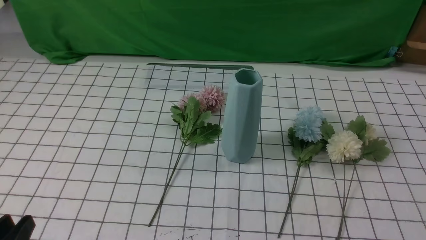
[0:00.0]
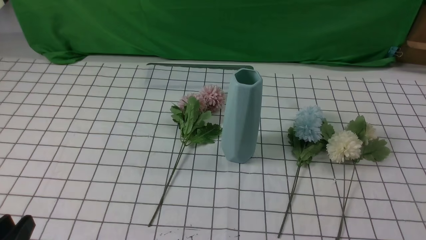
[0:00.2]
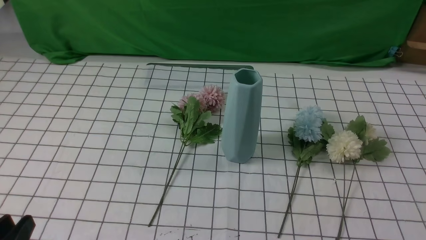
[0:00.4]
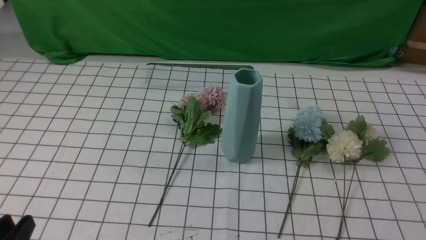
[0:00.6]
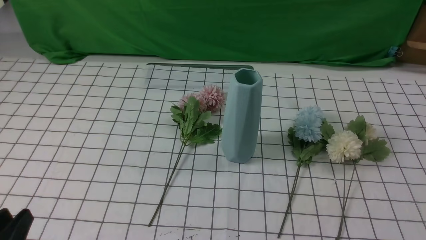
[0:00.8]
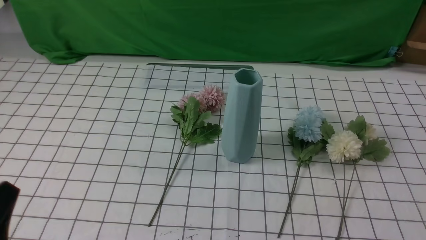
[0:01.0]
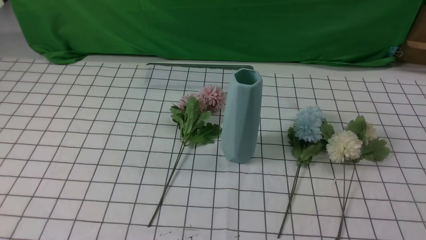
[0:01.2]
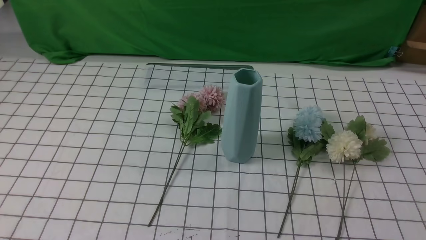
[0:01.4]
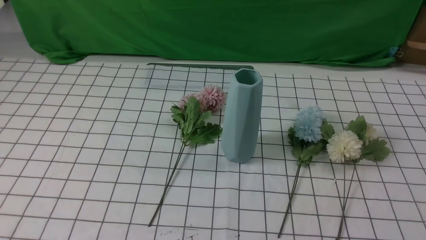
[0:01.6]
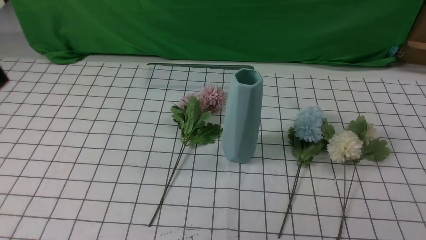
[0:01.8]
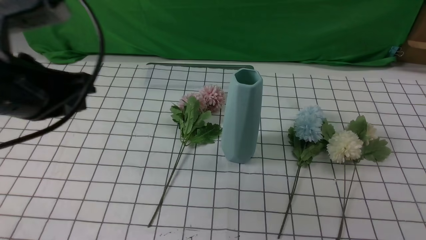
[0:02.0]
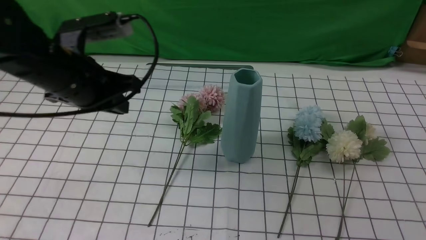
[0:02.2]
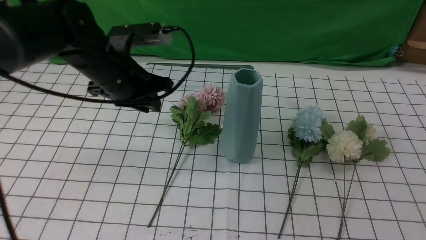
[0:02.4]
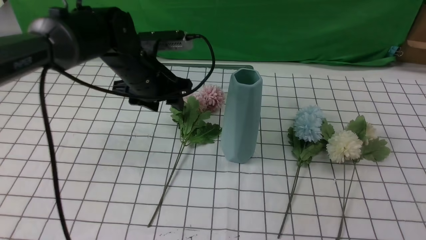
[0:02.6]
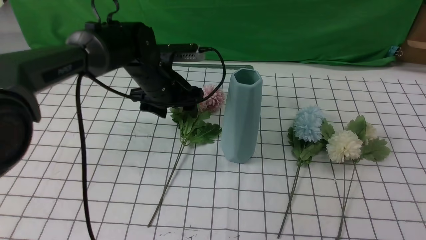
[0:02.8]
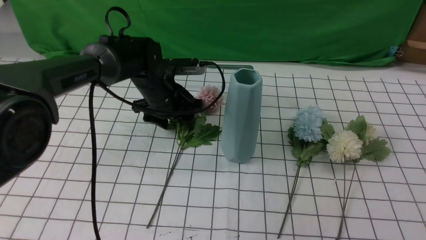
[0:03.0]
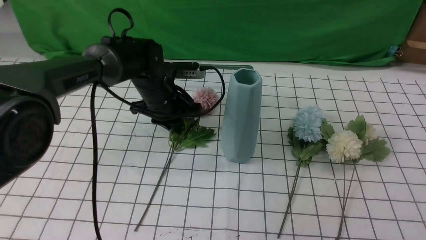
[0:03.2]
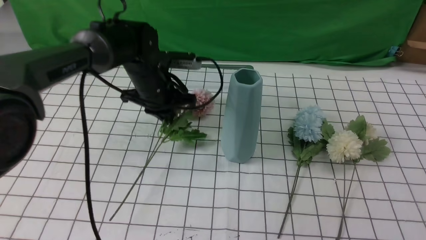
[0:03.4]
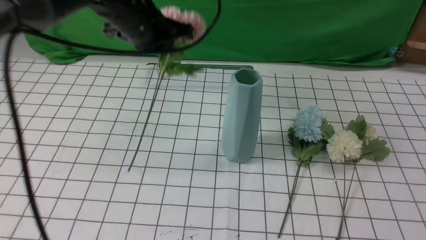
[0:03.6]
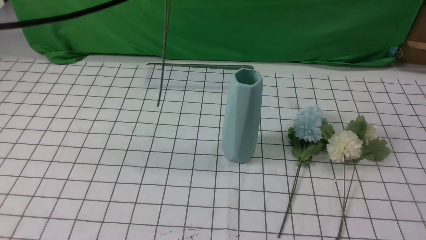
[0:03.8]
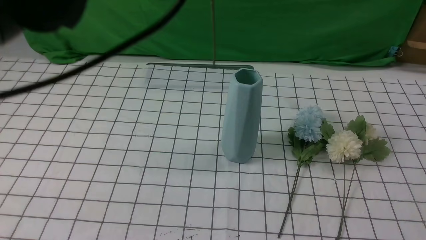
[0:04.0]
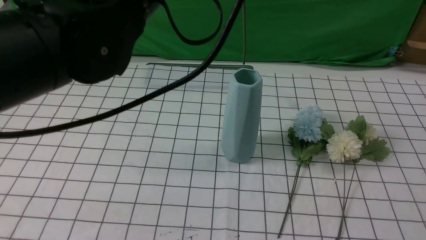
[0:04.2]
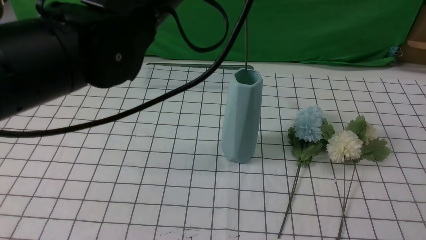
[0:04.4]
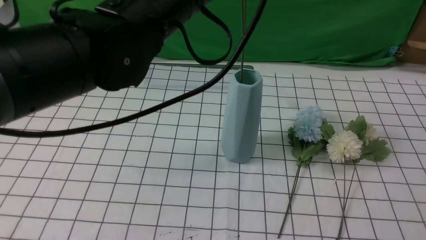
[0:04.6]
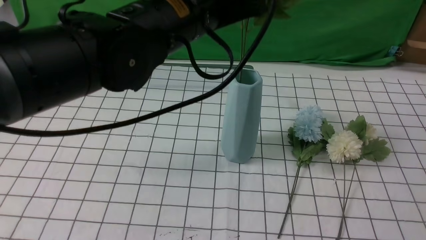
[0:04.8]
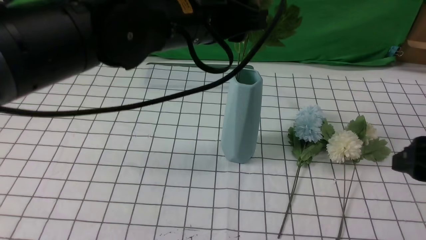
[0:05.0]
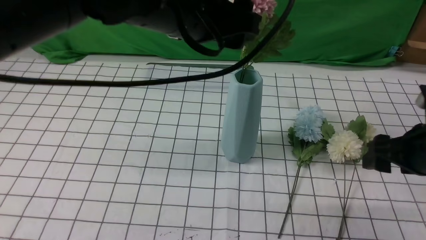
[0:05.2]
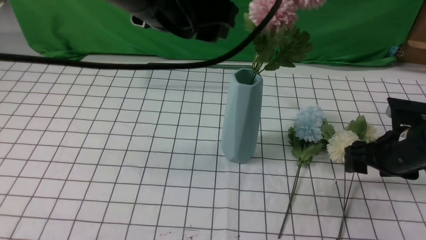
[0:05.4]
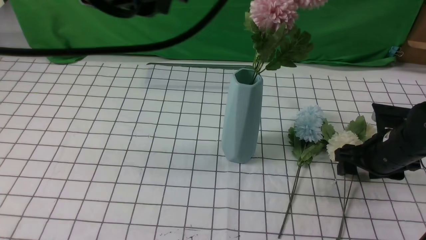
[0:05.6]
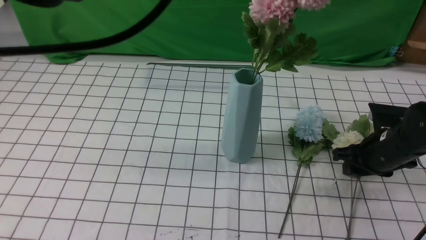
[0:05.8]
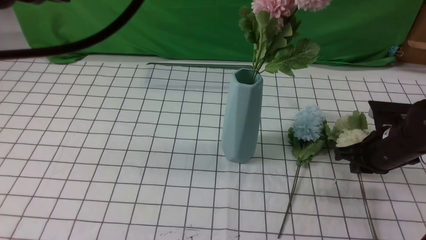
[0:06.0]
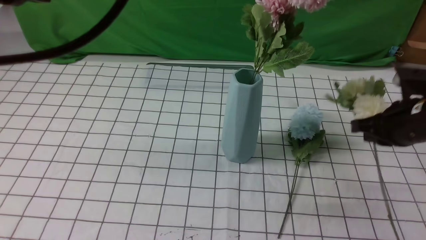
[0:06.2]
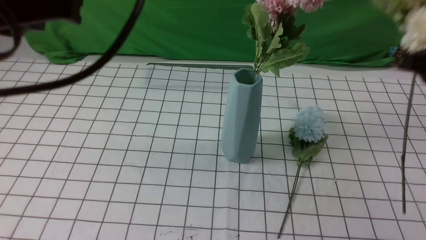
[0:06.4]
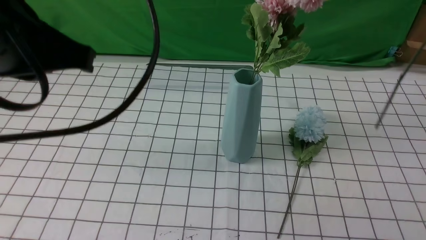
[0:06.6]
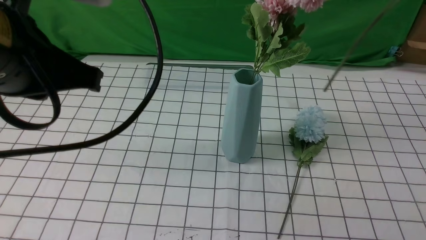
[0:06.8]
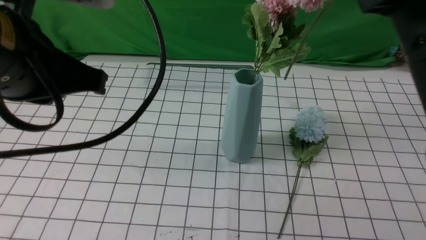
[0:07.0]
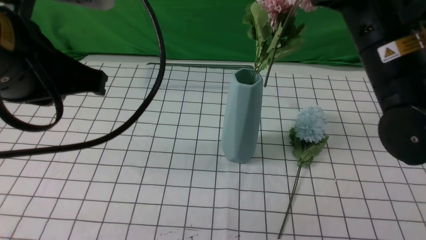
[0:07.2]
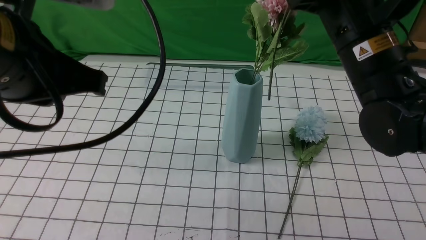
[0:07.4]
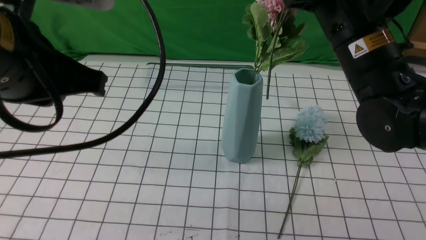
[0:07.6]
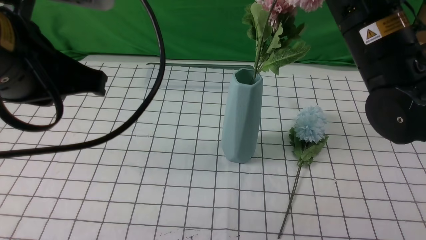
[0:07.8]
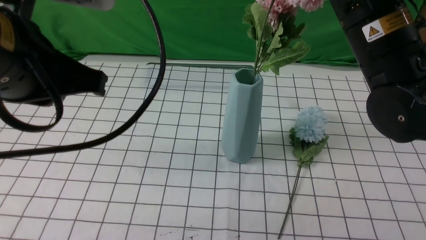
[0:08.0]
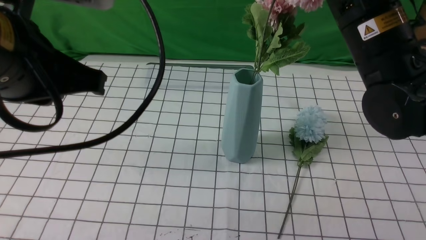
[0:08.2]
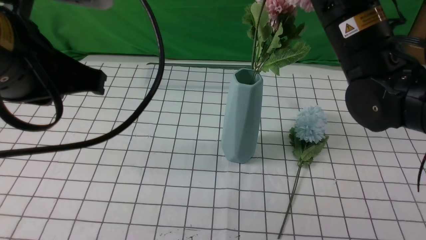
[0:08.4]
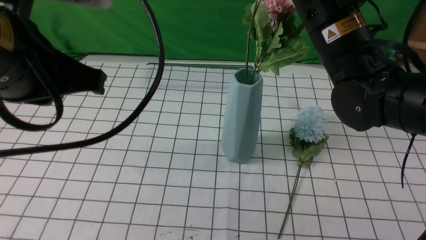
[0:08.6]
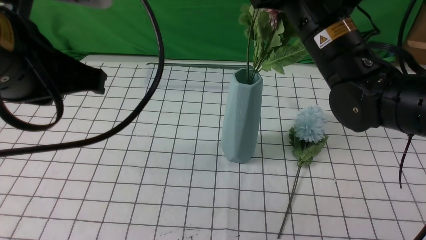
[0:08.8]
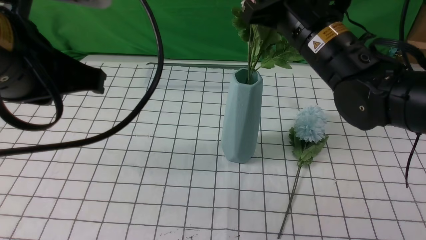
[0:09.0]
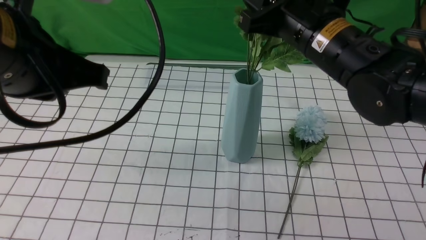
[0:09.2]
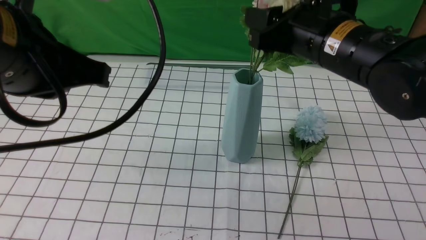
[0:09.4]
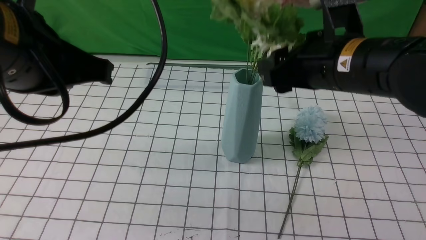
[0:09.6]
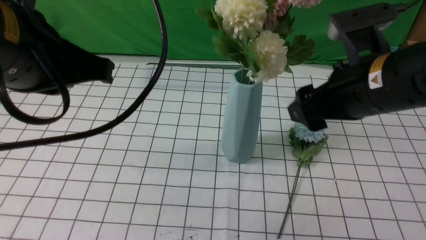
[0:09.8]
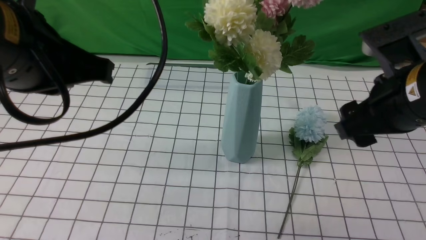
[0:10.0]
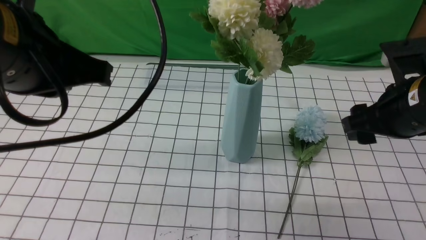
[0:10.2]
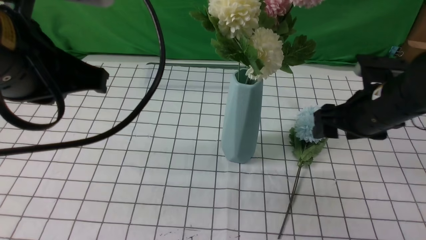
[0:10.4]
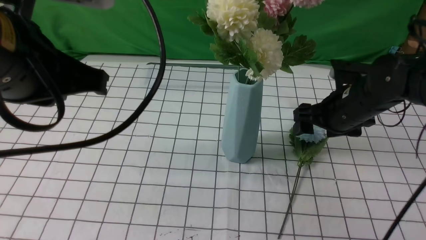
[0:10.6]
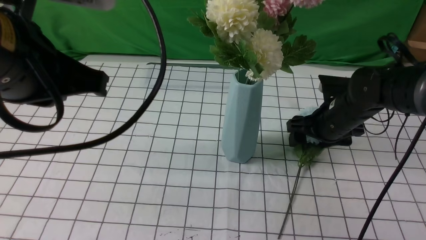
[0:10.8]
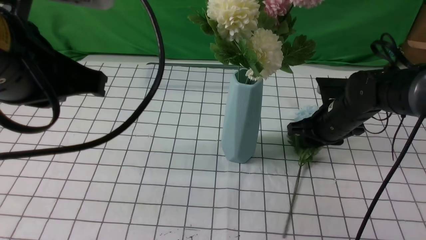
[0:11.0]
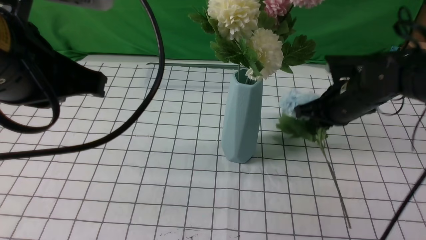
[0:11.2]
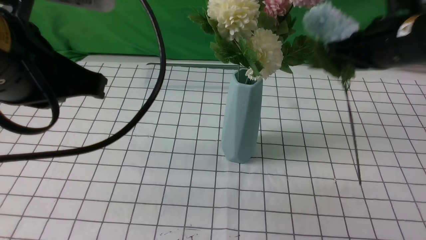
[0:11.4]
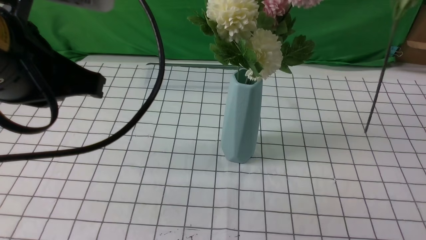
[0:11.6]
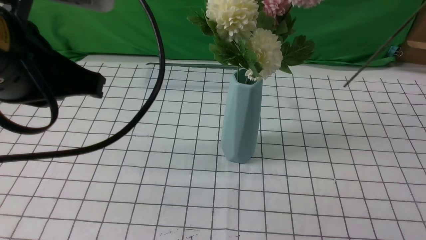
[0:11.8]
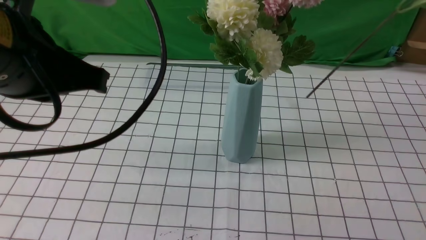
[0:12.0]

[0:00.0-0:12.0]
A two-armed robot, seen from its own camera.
Task of the whole recording: insert the flowers into the vase on the table with the white tablecloth.
Step, 0:00.0 to 0:03.2: use the left arm to grab a bunch of fresh flowers.
Step, 0:03.4 to 0:05.2: use the left arm to insert the flowers into the vase.
Step, 0:05.4 to 0:05.8: use the right arm to grab a bunch of fresh flowers.
Step, 0:06.0 to 0:09.6: use the right arm to insert the flowers into the vase.
Step, 0:09.8 to 0:11.0: use the right arm to grab a bunch of fresh flowers.
0:00.0 to 0:01.6: The left gripper travels upward by some 15 cm, and closes.
0:01.6 to 0:03.0: The left gripper shifts about 40 cm forward, downward and to the right, and opens up; the right gripper moves upward, roughly 10 cm, and opens its fingers.
0:03.0 to 0:04.4: The left gripper travels upward and backward by approximately 30 cm, and closes its fingers.
0:04.4 to 0:06.0: The right gripper is displaced forward and downward by some 25 cm, and closes. The left gripper goes roughly 15 cm backward, to the left and upward, and opens, then closes once more.
0:06.0 to 0:07.6: The right gripper moves upward and to the left, some 20 cm. The left gripper travels downward by roughly 10 cm.
0:07.6 to 0:09.0: The right gripper moves some 5 cm.
0:09.0 to 0:10.4: The right gripper shifts some 15 cm downward and to the right, and opens.
0:10.4 to 0:12.0: The right gripper moves up and down over about 25 cm, changing direction 2 times, and closes up.

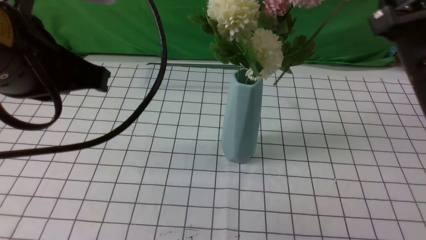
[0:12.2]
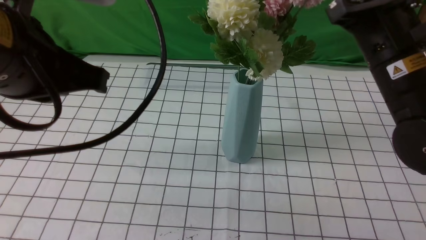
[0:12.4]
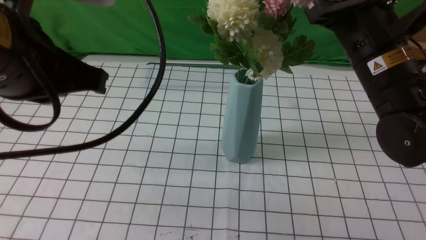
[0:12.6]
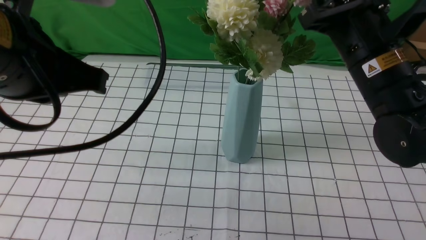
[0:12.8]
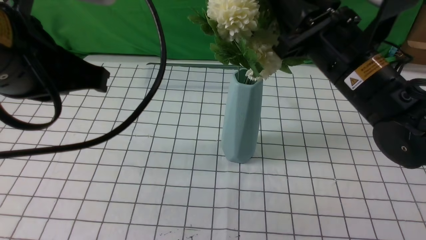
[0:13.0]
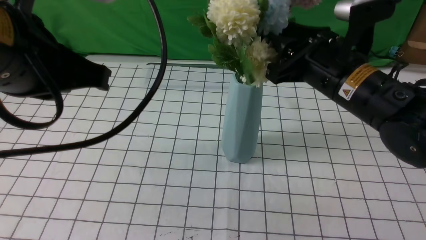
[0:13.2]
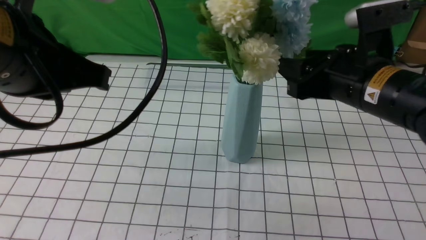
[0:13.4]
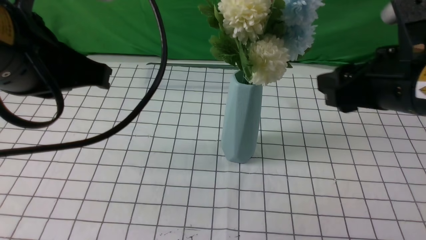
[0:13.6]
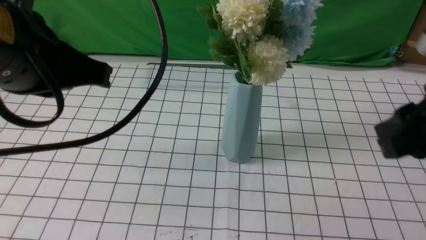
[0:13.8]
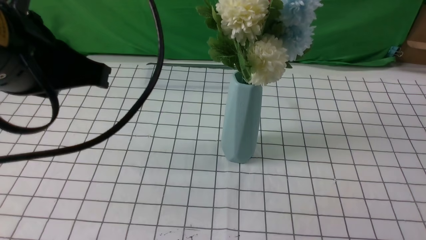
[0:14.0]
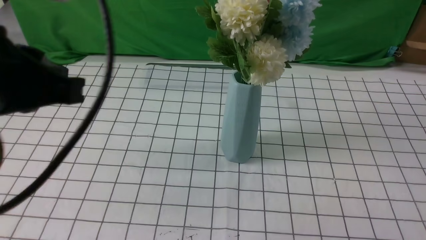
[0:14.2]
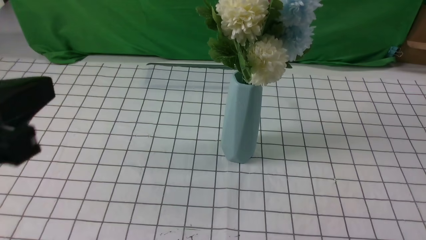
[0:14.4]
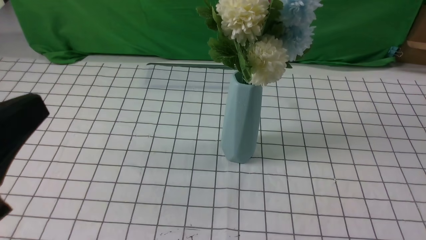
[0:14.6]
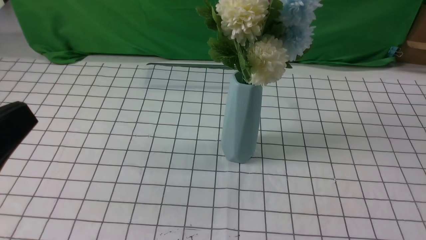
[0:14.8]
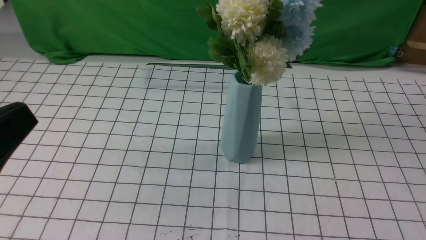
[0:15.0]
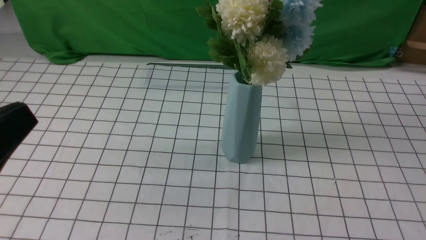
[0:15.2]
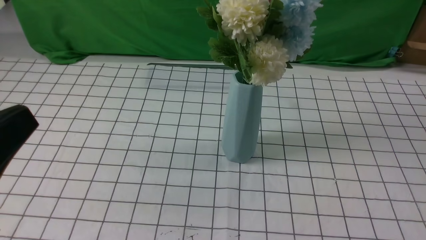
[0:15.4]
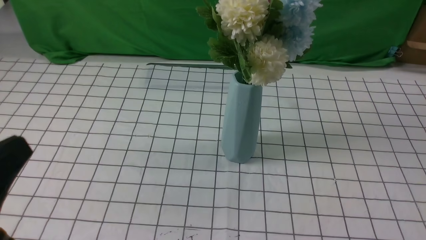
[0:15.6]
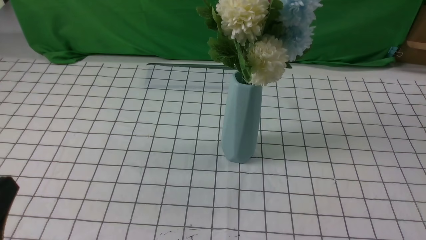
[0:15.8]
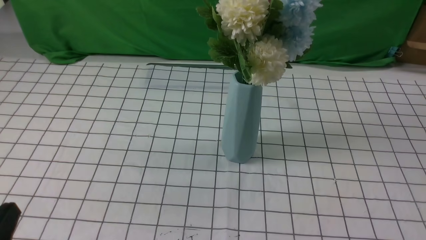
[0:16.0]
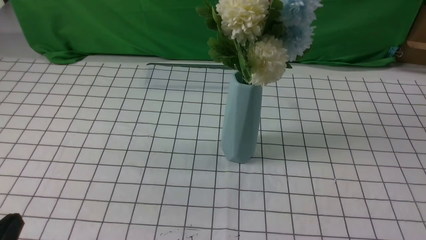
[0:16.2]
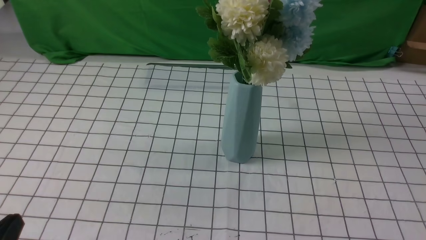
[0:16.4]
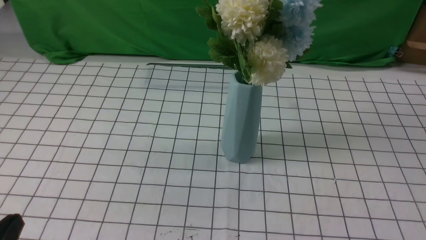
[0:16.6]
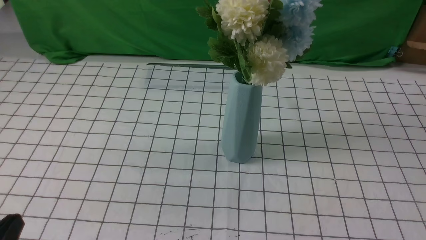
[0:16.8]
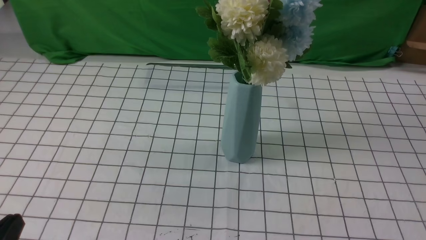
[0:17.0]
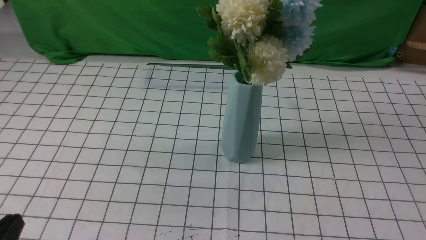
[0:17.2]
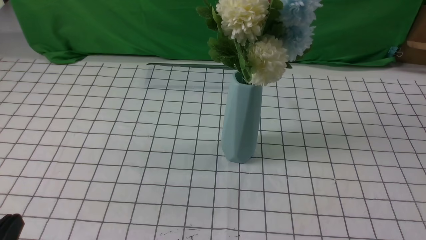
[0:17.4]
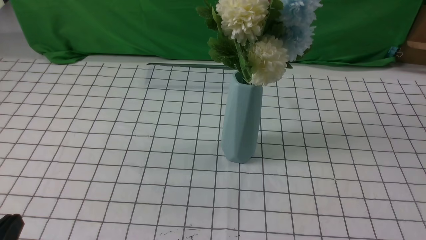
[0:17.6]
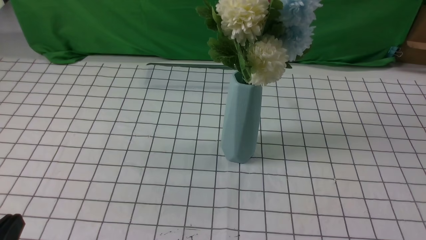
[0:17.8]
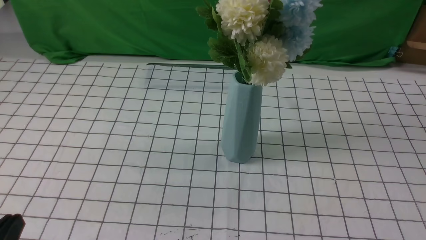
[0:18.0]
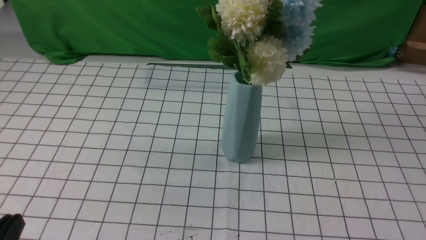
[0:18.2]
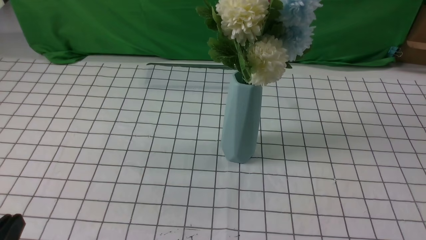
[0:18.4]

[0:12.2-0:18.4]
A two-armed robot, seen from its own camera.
Task of the whole recording: insert the flowers into the vase on the table with the white tablecloth.
Step, 0:12.2 to 0:13.4: use the right arm to insert the flowers into the vase.
0:12.2 to 0:13.8: The right gripper heads backward, covering approximately 10 cm, and opens and closes again.
0:13.8 to 0:15.4: The right gripper shifts about 20 cm backward and to the right; the left gripper goes roughly 15 cm backward, downward and to the left.
0:15.4 to 0:16.8: The left gripper goes roughly 15 cm downward.
